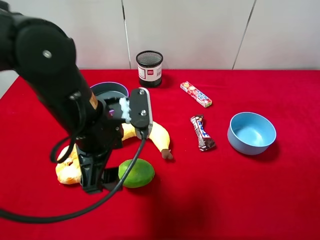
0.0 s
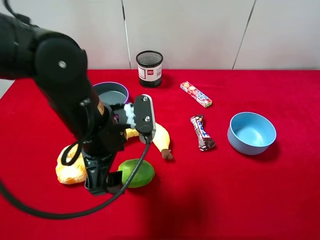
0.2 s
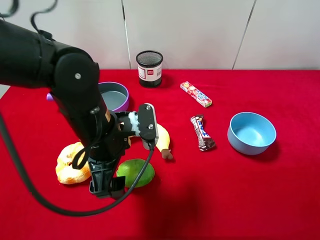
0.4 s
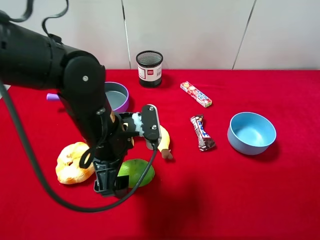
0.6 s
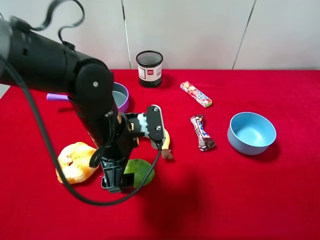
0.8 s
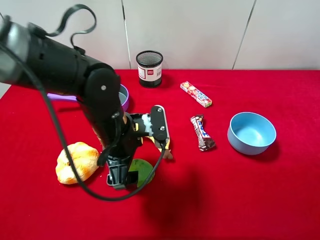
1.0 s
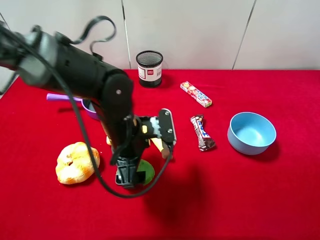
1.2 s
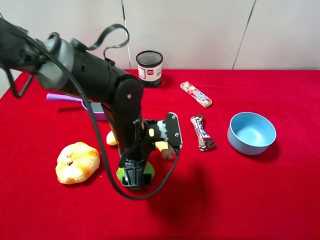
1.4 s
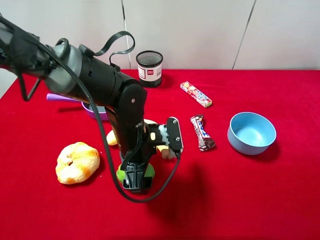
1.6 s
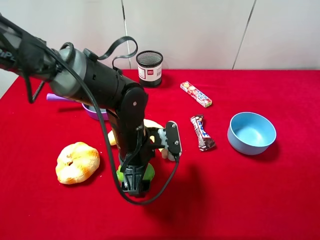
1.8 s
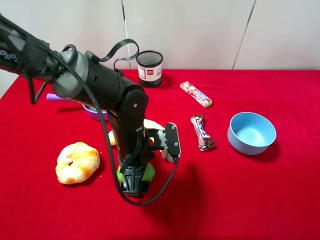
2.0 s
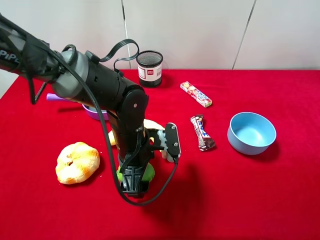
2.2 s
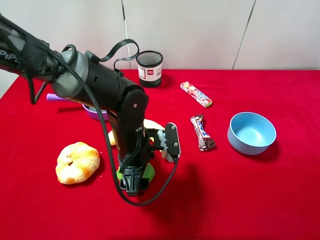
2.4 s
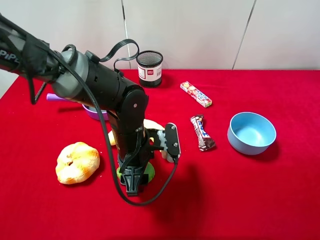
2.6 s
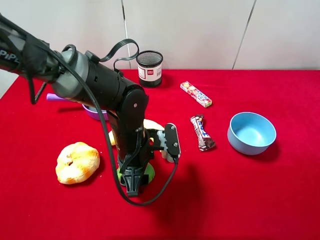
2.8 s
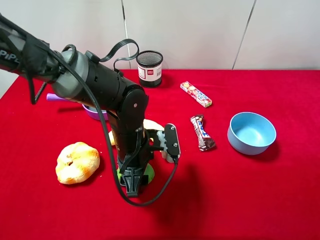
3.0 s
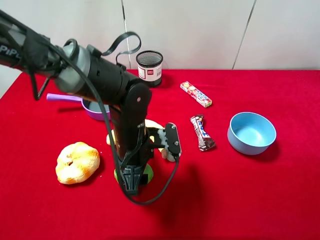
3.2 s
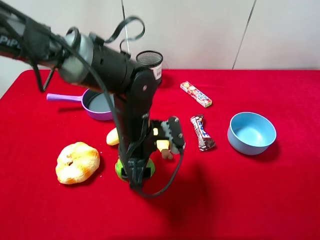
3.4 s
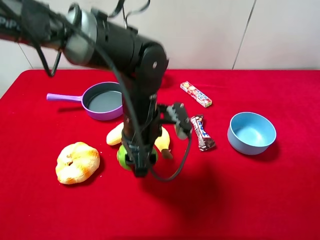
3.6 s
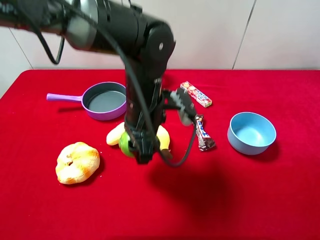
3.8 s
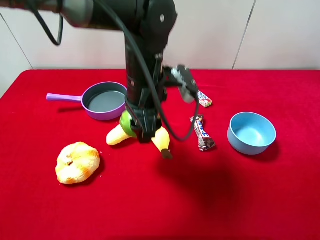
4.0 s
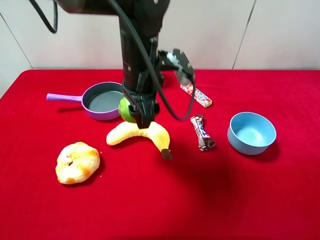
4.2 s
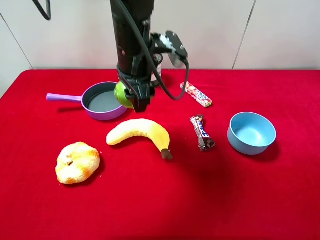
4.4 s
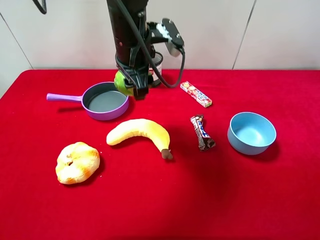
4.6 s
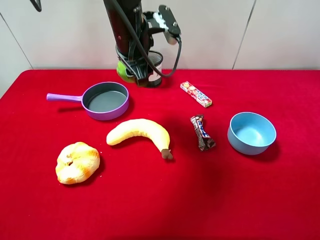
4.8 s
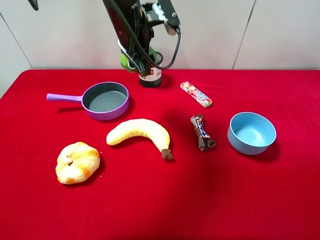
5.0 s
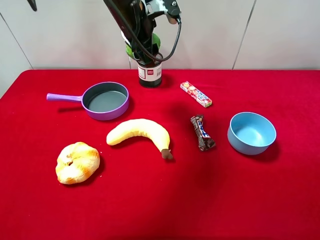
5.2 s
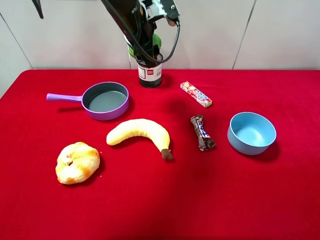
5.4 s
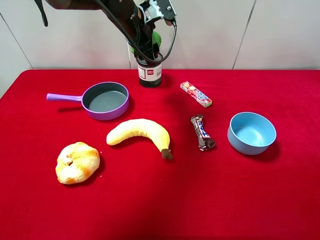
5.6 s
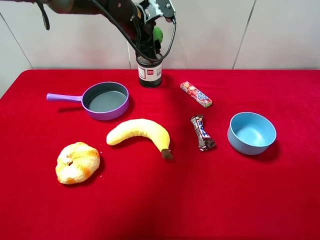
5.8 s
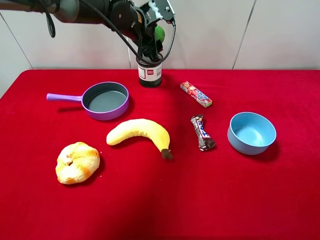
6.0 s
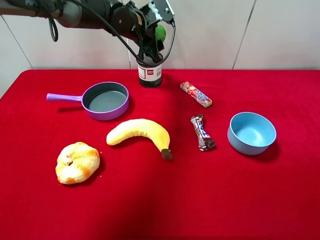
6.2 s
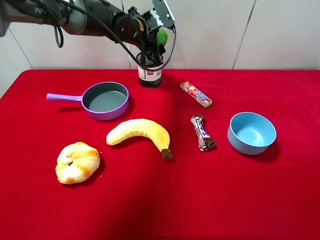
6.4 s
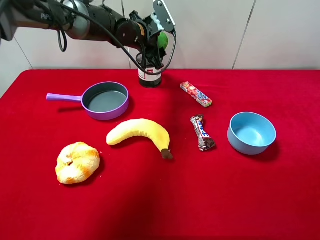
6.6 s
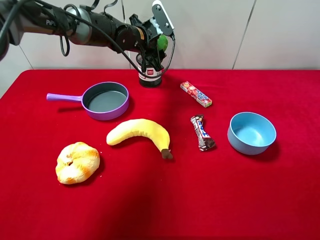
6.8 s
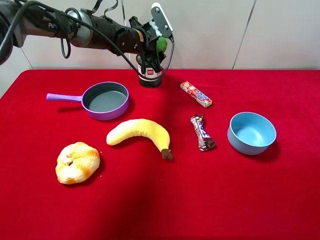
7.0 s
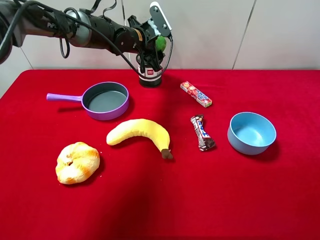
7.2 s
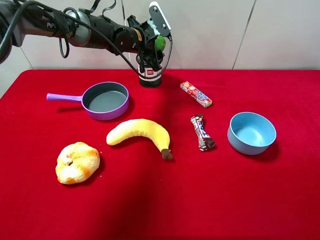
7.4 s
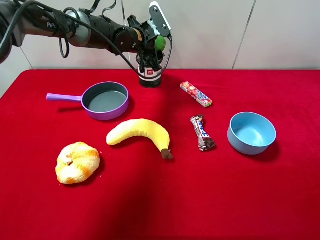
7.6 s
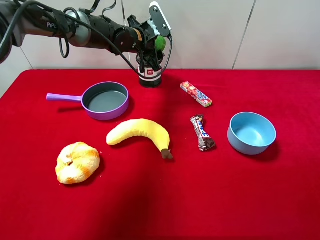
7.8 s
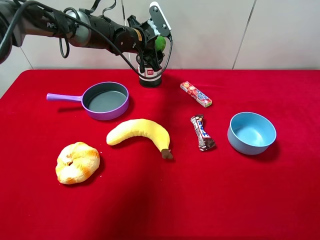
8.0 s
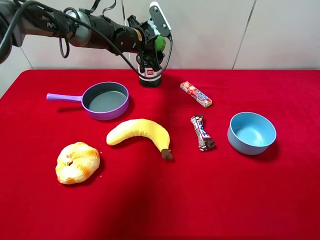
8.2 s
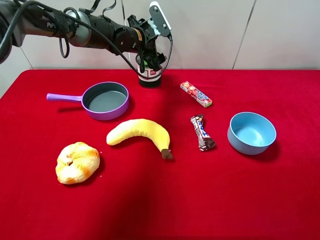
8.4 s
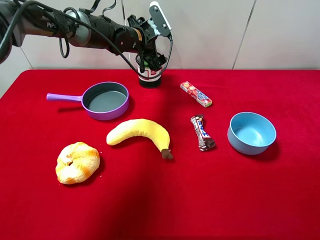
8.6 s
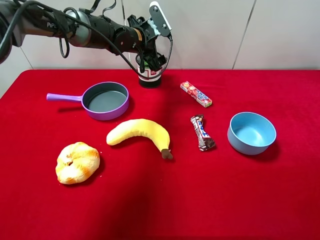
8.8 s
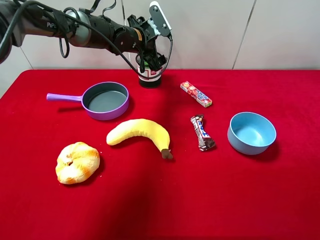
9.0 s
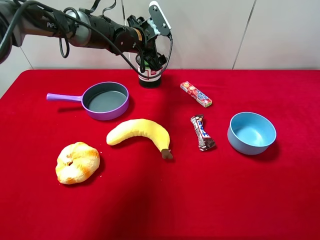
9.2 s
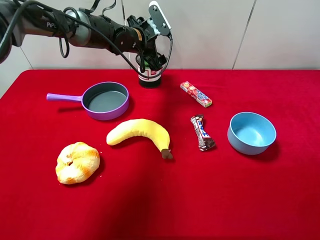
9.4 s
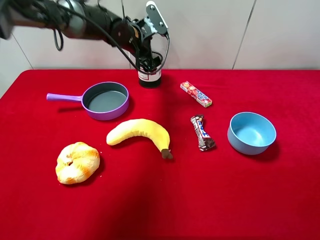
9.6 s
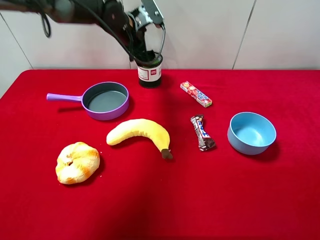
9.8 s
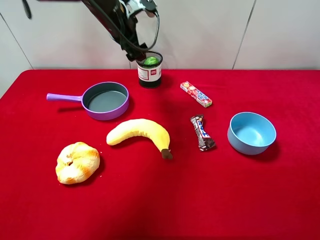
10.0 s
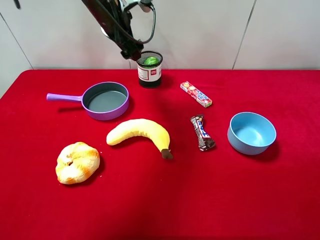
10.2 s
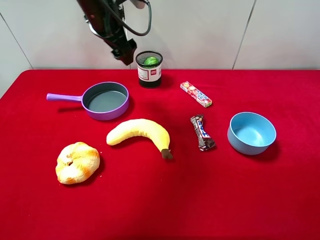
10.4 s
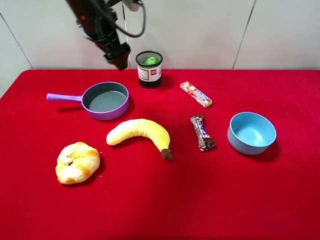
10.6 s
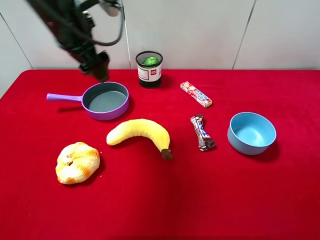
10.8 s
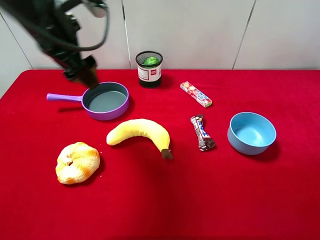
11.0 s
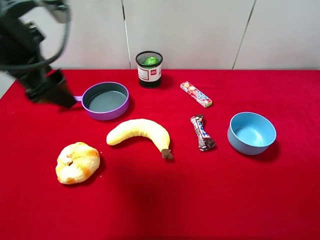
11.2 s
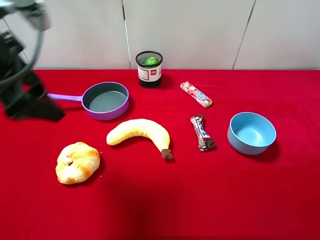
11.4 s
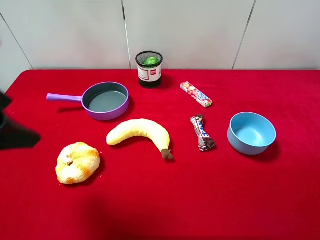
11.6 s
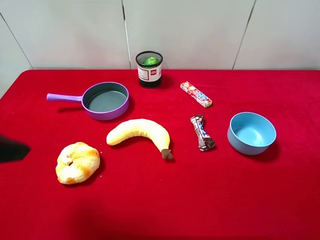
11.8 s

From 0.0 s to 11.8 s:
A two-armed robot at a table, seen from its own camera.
Task of the whole recording: pick up an item with a gripper and place it in a random container on the desktop.
From 0.0 s to 1.4 s: The left gripper moves downward and to the right, about 10 cm.
From 1.4 s to 3.0 s: The left gripper closes up.
From 3.0 s to 4.4 s: The left gripper is displaced upward and forward by roughly 20 cm.
From 4.4 s to 6.0 s: The left gripper goes some 15 cm forward.
From 6.0 s to 7.4 s: The left gripper moves roughly 5 cm.
From 7.4 s to 8.8 s: The left gripper opens.
From 8.8 s to 10.4 s: The left gripper shifts some 15 cm upward, backward and to the left.
From 10.4 s to 11.8 s: The left gripper shifts roughly 30 cm backward and to the left.

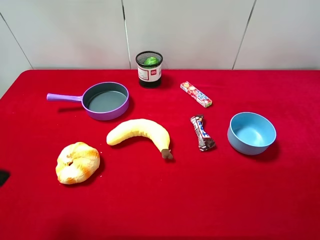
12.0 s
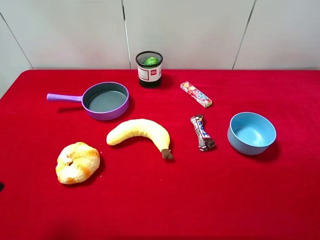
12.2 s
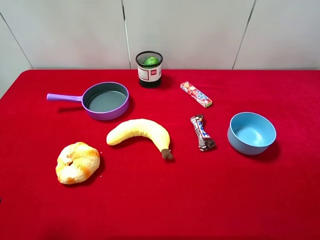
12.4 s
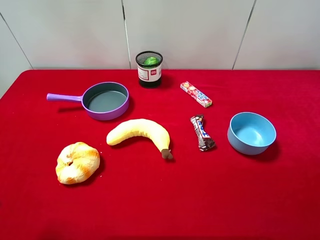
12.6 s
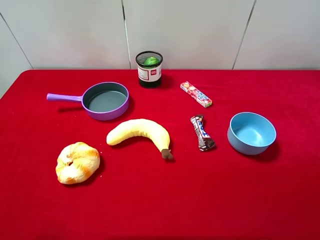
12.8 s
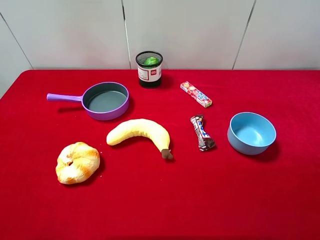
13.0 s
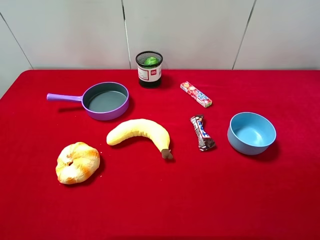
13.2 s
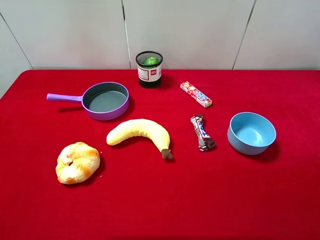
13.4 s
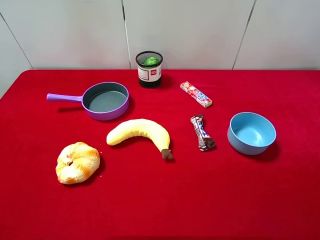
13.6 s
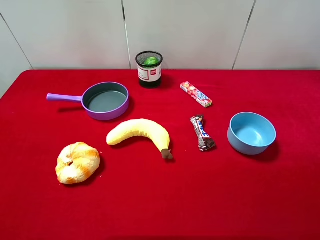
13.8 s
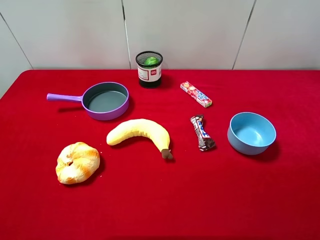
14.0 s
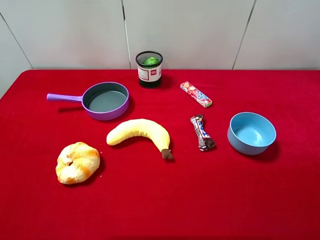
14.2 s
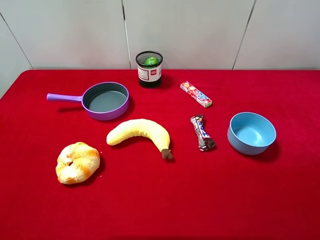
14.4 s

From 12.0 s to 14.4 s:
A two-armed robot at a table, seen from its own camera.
Task of the whole recording: pick up an item with a gripper and place it in a random container on the desktop.
From 13.2 s to 14.4 s: The two grippers keep their place.

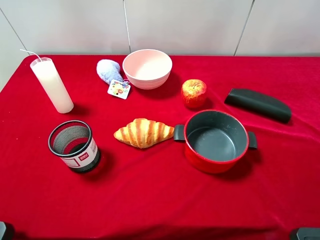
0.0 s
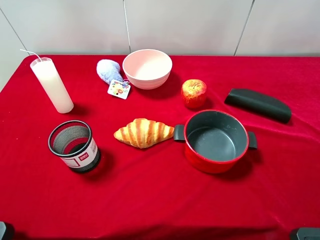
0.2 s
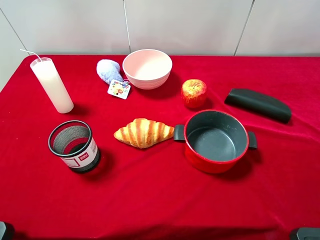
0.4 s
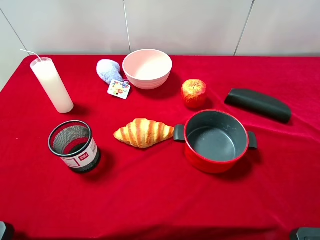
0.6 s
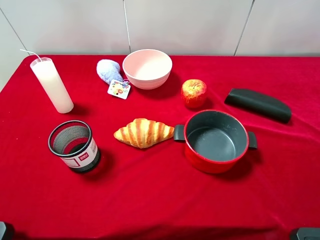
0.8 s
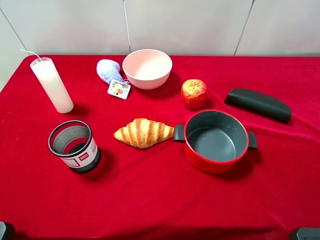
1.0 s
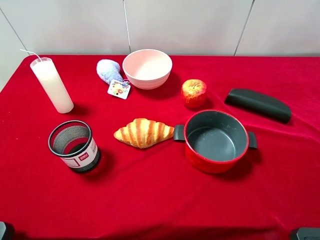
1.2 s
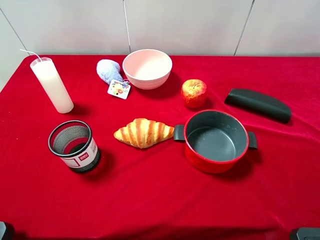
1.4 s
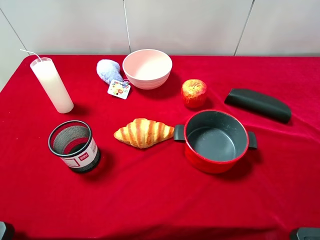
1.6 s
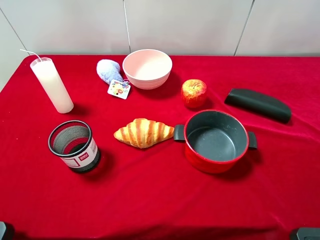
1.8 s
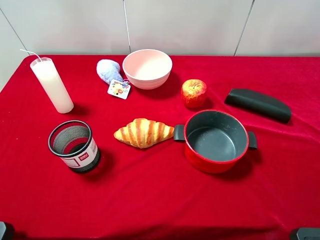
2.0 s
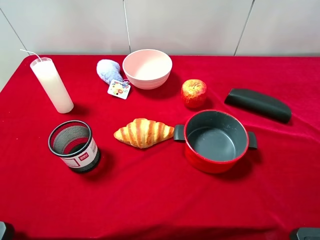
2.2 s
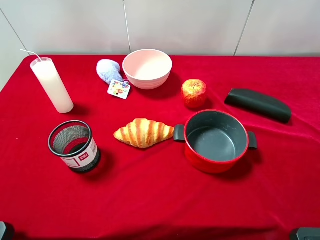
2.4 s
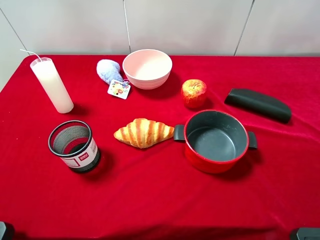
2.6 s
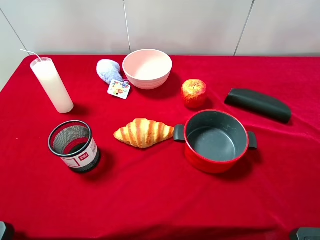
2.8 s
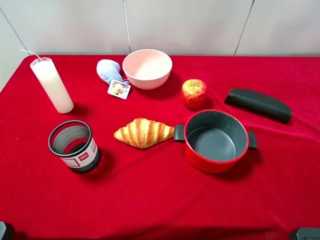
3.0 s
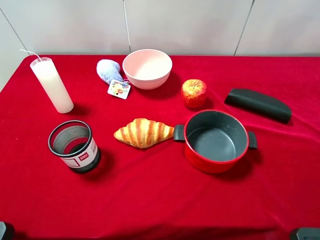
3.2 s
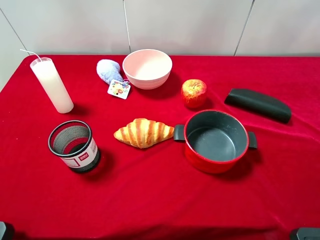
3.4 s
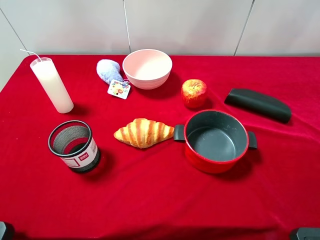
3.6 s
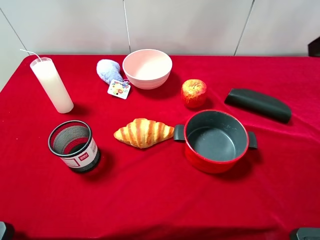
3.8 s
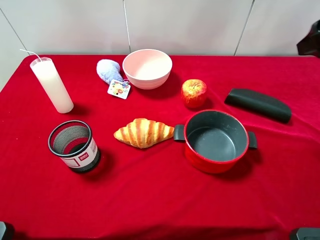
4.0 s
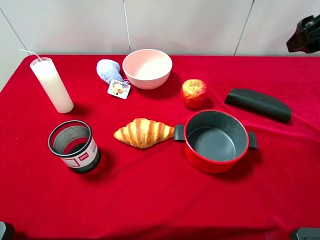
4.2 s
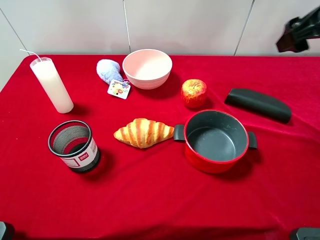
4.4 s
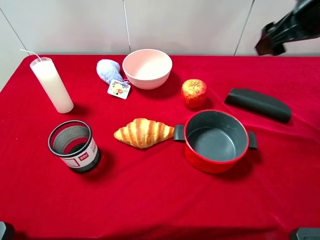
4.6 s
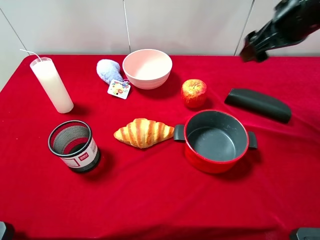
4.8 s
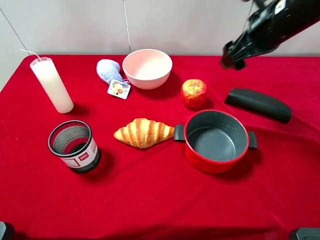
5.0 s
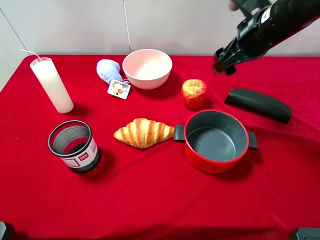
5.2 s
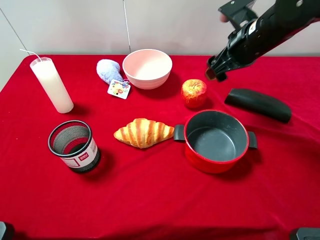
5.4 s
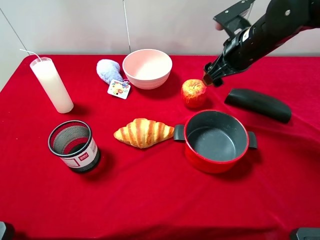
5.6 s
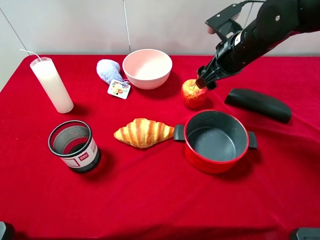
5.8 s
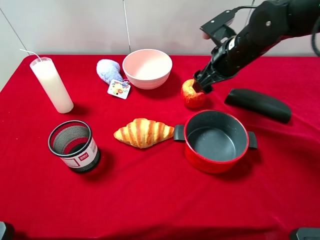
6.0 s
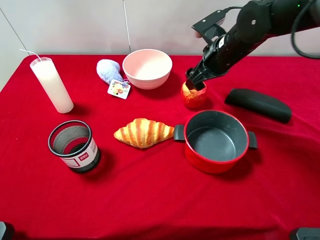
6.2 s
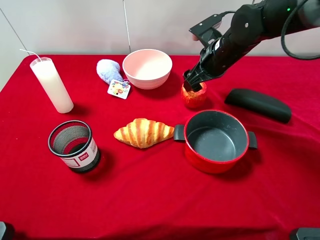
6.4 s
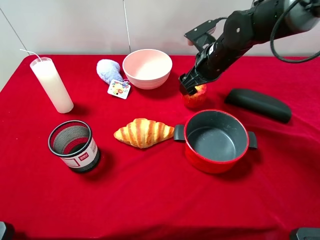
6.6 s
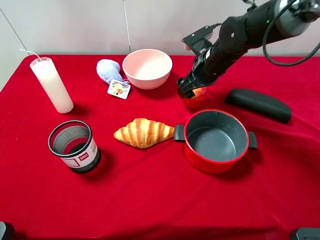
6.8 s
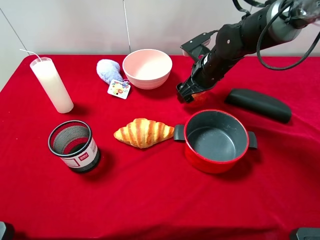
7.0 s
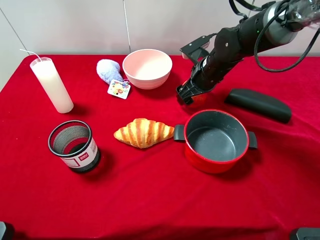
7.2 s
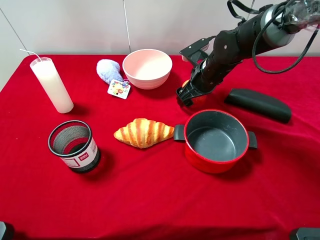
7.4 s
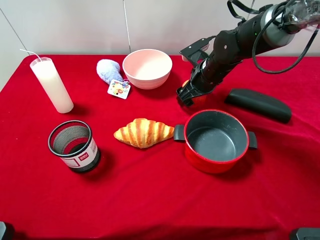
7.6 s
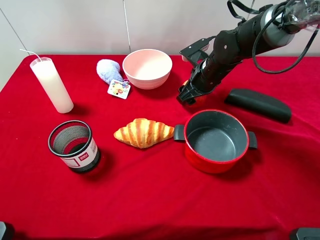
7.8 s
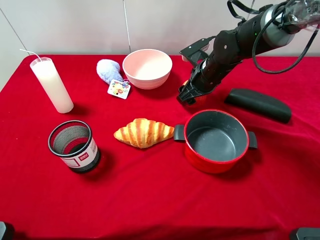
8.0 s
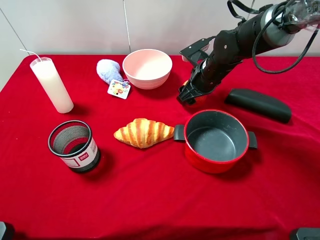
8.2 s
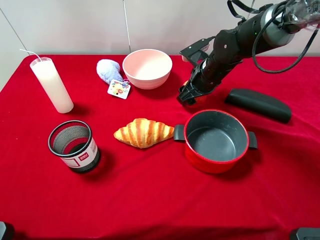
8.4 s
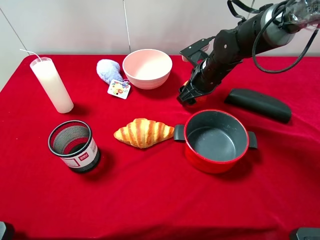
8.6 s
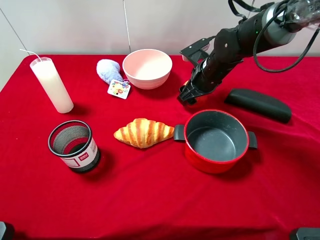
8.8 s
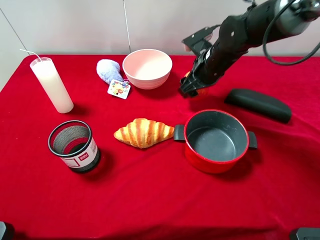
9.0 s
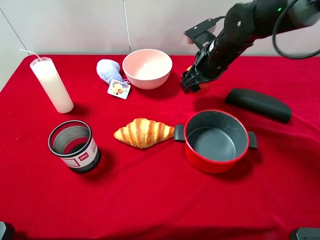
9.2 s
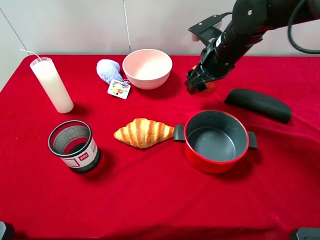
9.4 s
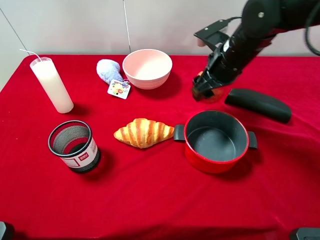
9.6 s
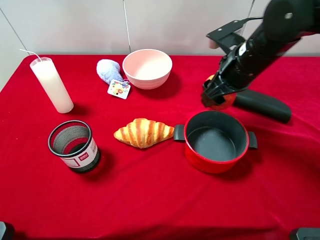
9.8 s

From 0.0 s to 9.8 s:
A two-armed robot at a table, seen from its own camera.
Task of the whole recording: pick up an item with a gripper and place it in a random container on the desktop.
From 0.0 s to 1.4 s: Both grippers stay put.
From 2.8 s to 4.2 s: The right gripper heads forward, covering some 25 cm.
From 4.2 s to 5.6 s: The right gripper travels to the left, downward and forward by approximately 15 cm.
From 5.6 s to 7.0 s: The right gripper goes roughly 5 cm downward.
From 7.0 s to 8.4 s: The right gripper closes up.
From 8.4 s to 9.8 s: The right gripper shifts approximately 10 cm upward and backward.
